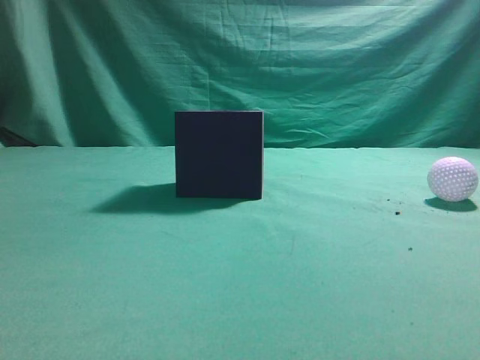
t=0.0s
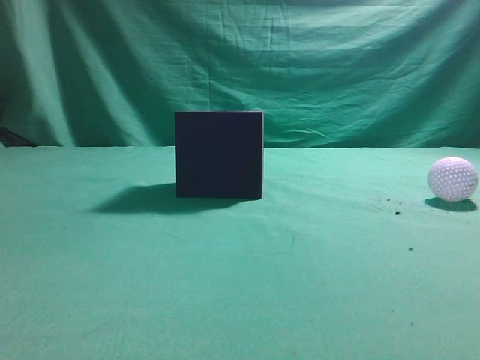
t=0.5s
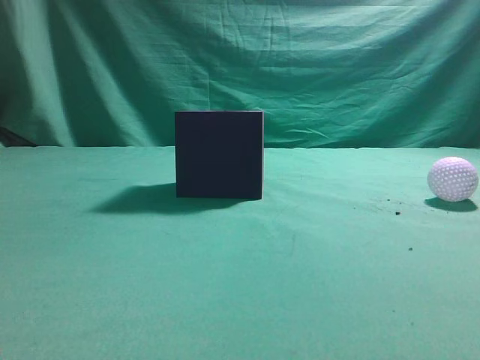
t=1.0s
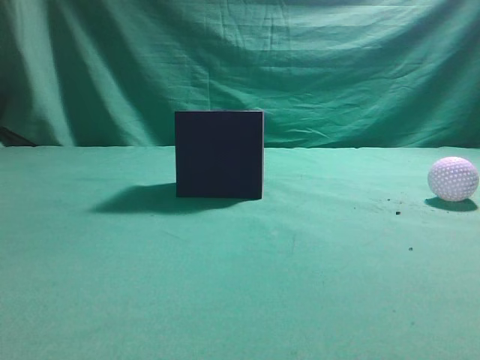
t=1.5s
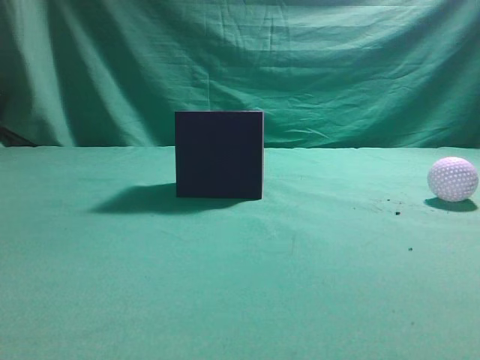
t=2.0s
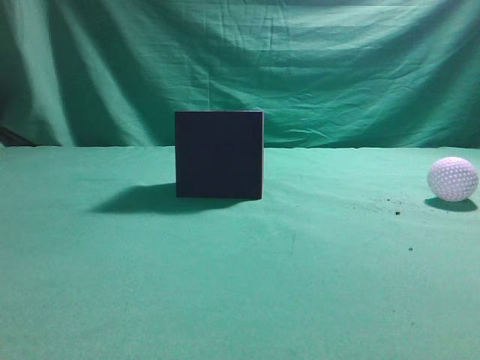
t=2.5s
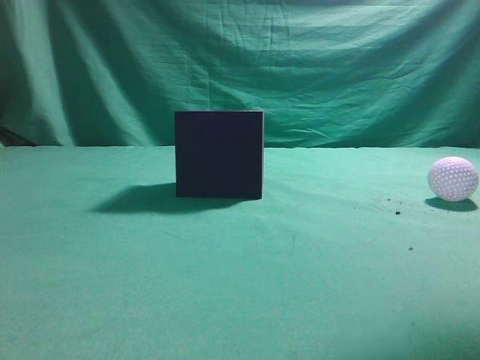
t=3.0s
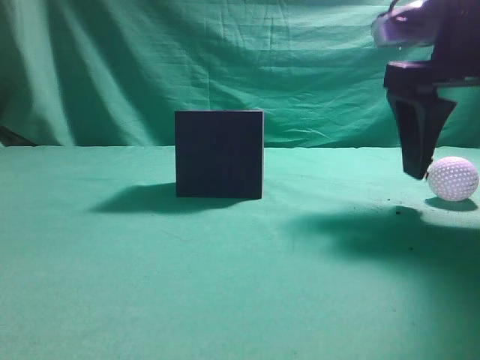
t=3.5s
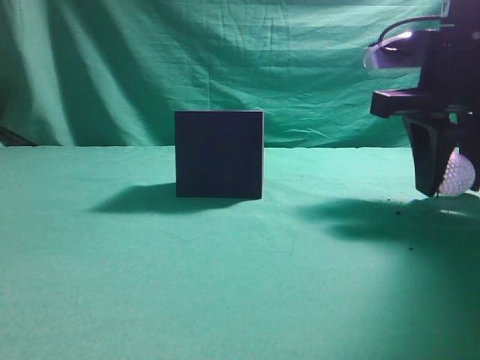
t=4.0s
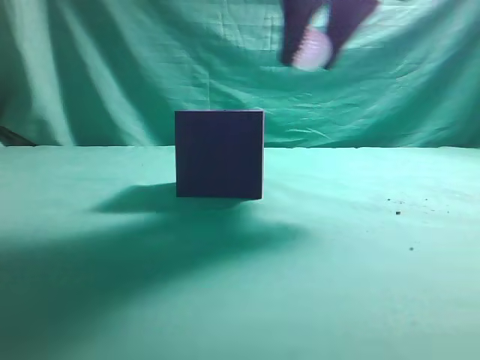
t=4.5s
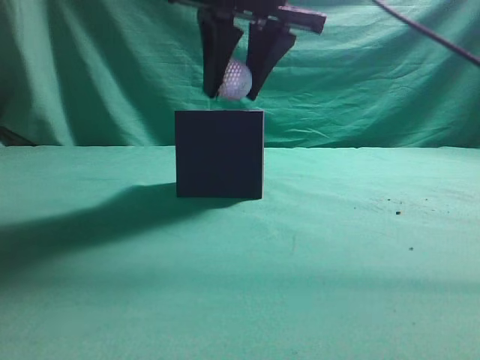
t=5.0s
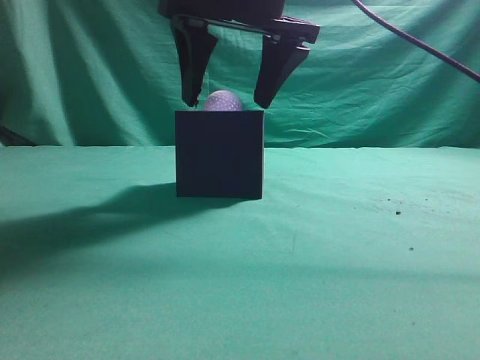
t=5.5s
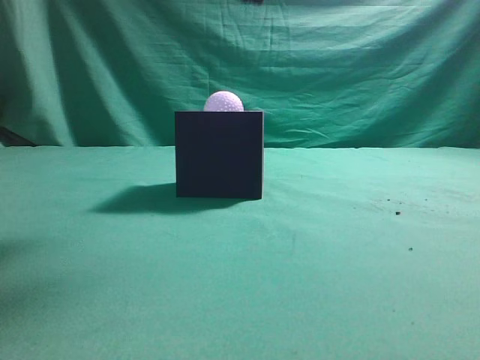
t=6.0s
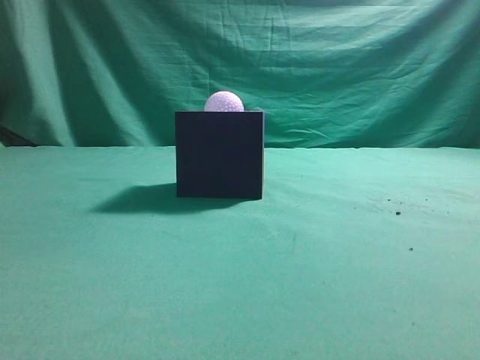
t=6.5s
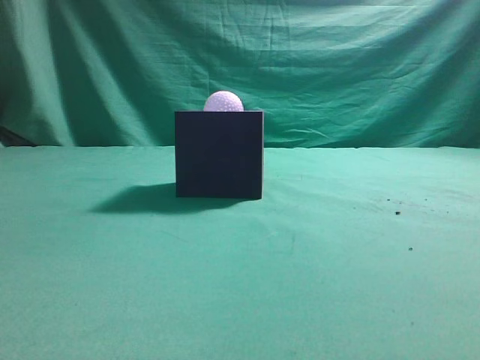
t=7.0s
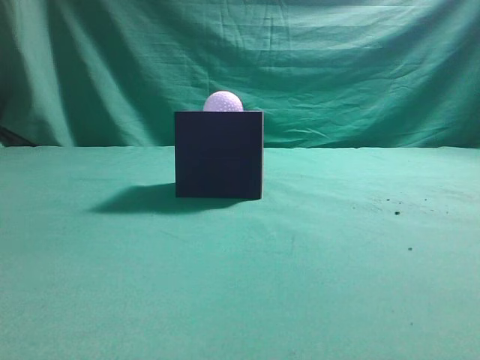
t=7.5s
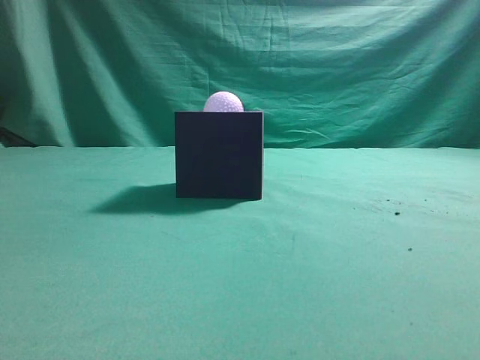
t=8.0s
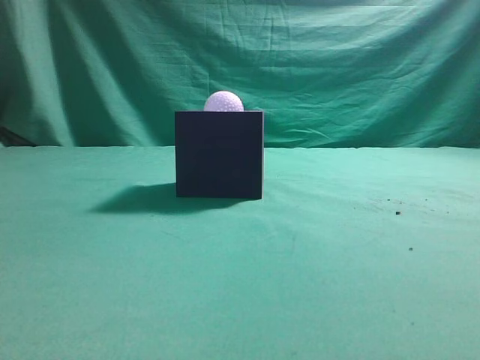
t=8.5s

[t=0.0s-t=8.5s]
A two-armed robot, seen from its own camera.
Task of the whole recording: Pick up the ball and place it in the circular groove above the cube.
Step, t=0.0s to t=4.0s: Grasp the sphere on the table.
Step, t=4.5s to t=5.5s: Place the sphere into the sphere-shaped recess.
t=2.0s to t=4.0s: The right gripper goes roughly 30 cm forward, to the left and downward, and opens.
t=4.0s to t=6.5s: The right gripper is displaced upward and backward by roughly 25 cm, and closes its fingers.
